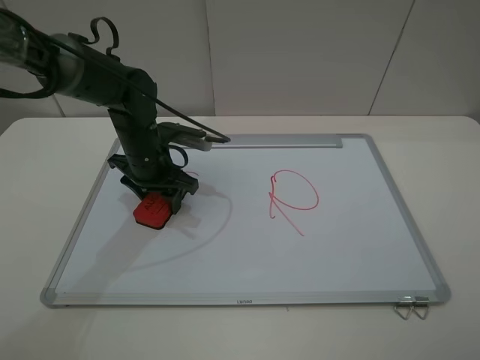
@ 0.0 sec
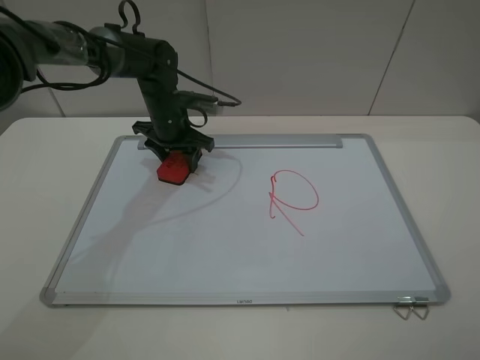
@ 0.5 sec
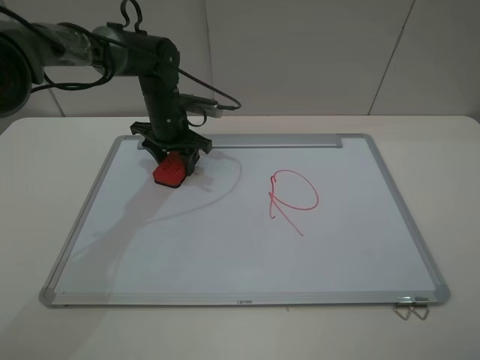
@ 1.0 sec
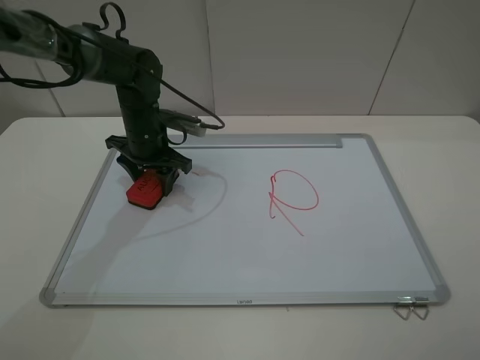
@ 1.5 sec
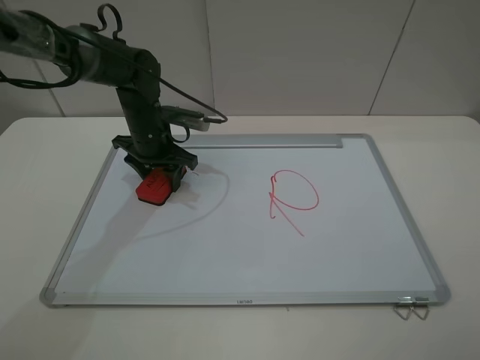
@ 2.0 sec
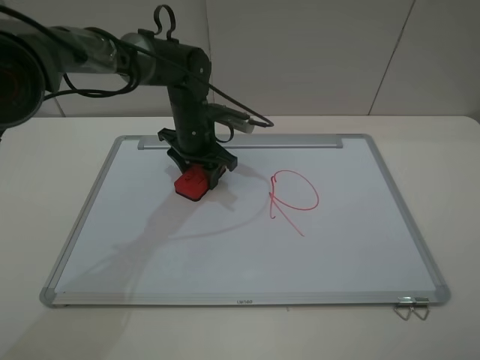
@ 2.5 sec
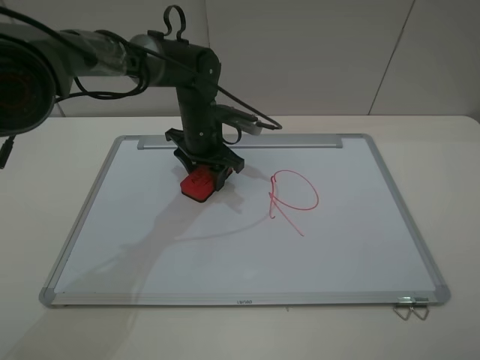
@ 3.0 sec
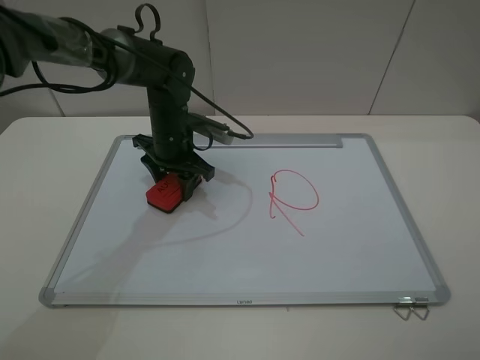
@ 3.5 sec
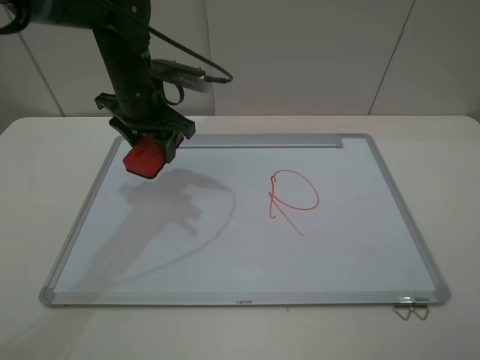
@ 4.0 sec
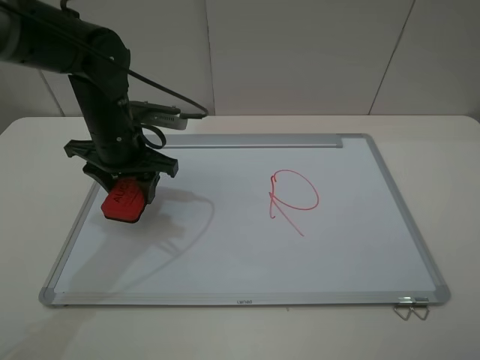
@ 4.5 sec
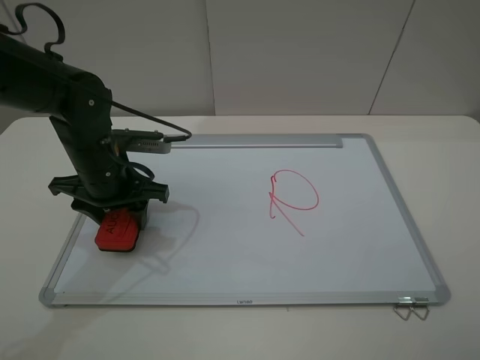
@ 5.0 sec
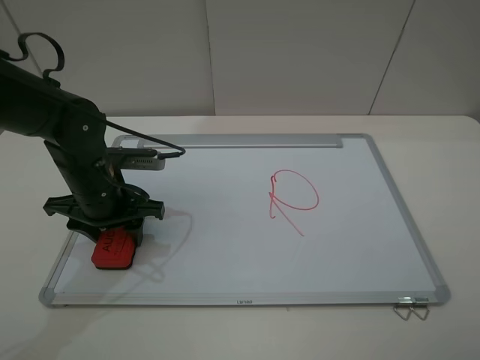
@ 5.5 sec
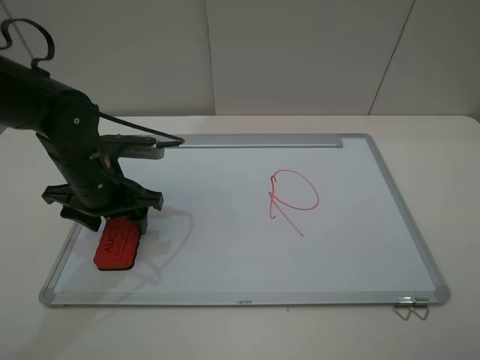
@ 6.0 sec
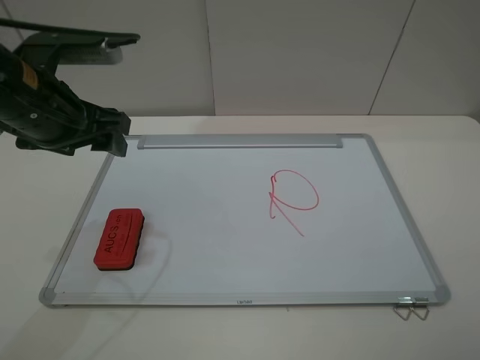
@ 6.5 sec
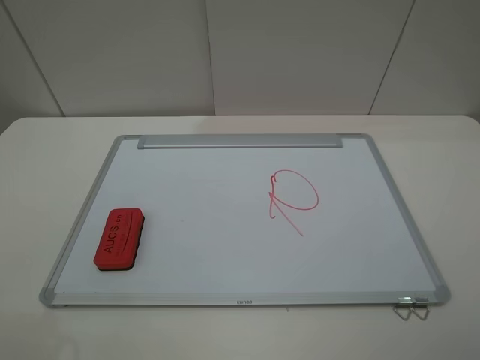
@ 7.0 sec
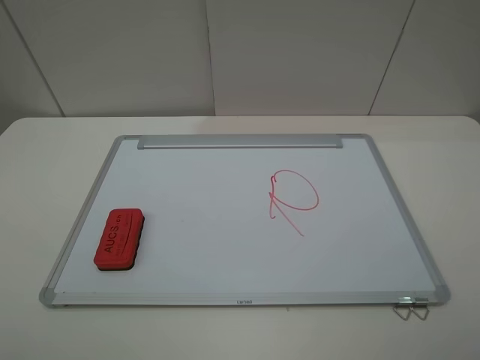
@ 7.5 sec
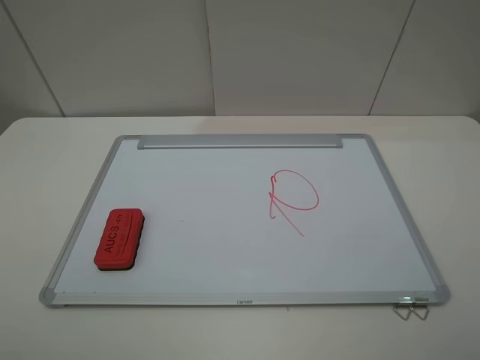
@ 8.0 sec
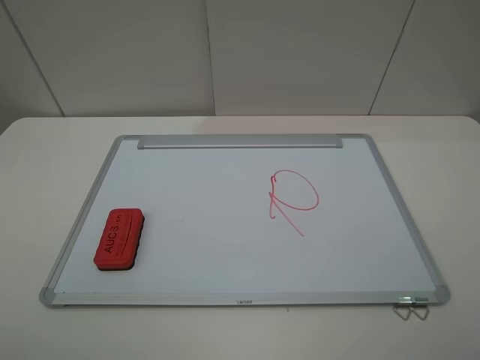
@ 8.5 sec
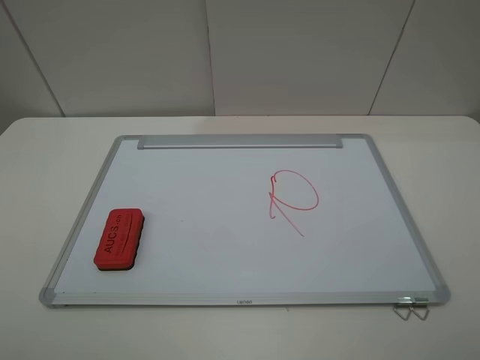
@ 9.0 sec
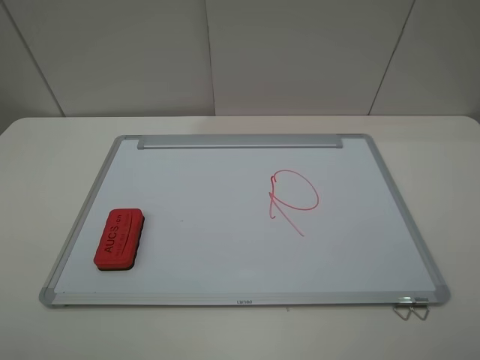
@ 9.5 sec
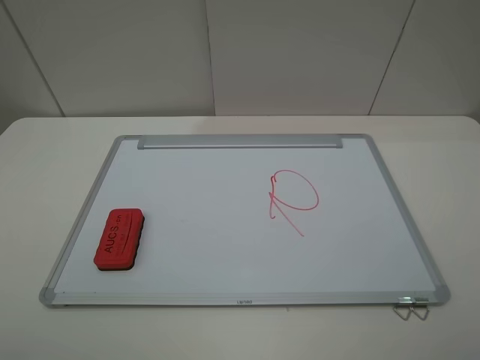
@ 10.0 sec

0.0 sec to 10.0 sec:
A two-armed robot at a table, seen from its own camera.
Step, 0.0 sec to 3.5 sec: Grasp the eraser and wipe the blackboard with the left gripper.
Step, 4.0 sec to 6.0 sec: Place the eraser with the left gripper.
2.0 sec to 4.0 sec: The left gripper is displaced upward by about 10 cm.
4.0 sec to 6.0 sec: The left gripper shifts some 10 cm backward and downward, and opens its fingers.
6.0 sec to 8.0 sec: The left gripper is displaced backward, upward and to the left by about 35 cm.
8.0 sec to 10.0 sec: Both grippers stay about where they are.
